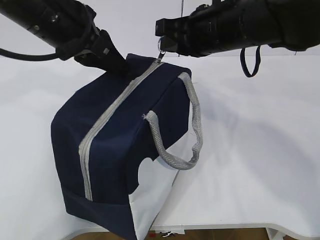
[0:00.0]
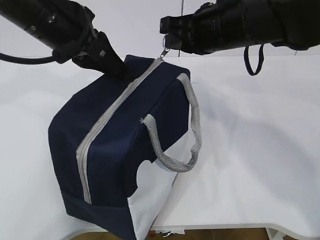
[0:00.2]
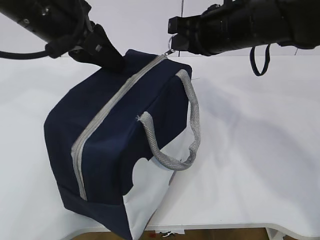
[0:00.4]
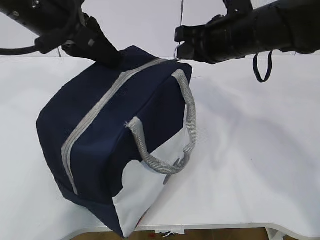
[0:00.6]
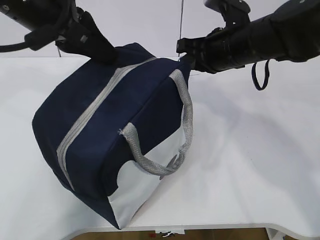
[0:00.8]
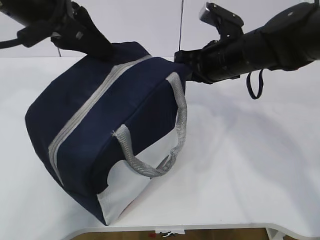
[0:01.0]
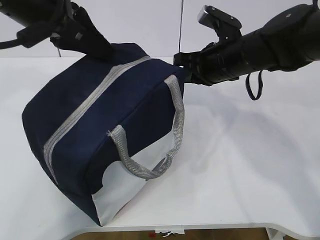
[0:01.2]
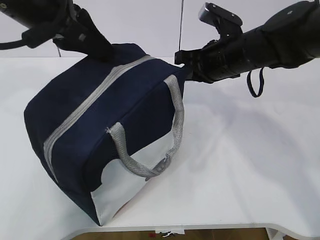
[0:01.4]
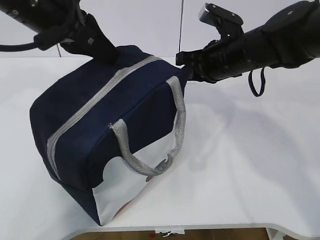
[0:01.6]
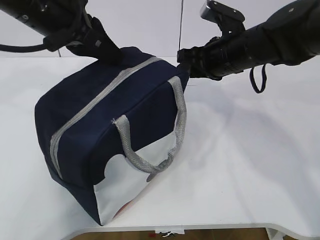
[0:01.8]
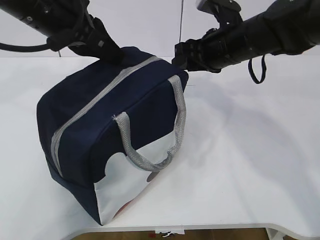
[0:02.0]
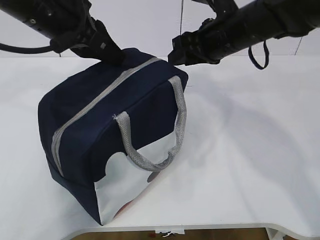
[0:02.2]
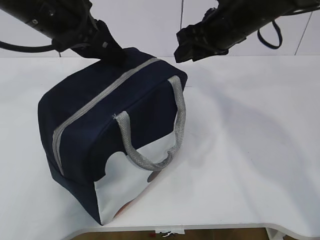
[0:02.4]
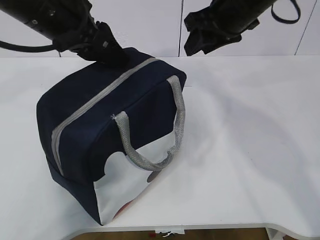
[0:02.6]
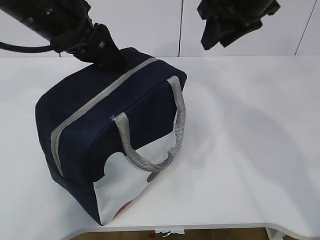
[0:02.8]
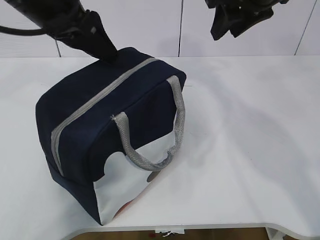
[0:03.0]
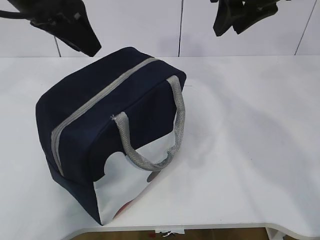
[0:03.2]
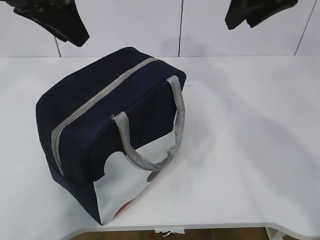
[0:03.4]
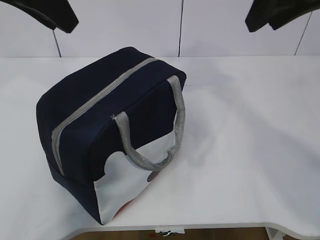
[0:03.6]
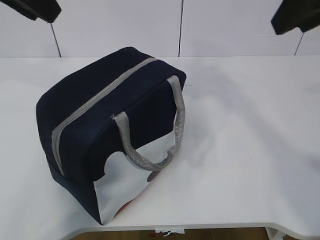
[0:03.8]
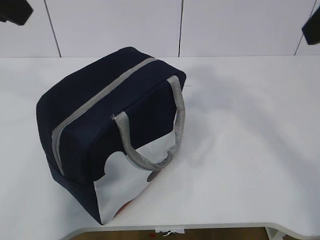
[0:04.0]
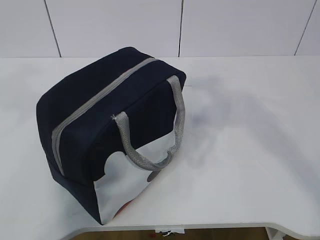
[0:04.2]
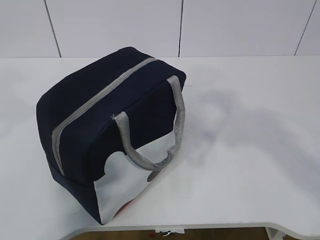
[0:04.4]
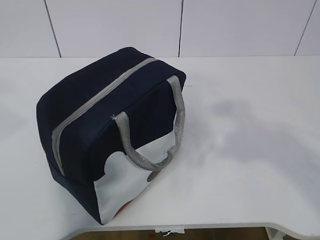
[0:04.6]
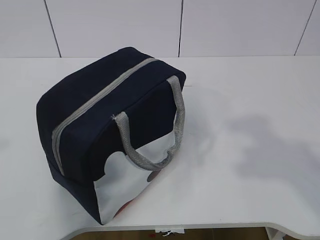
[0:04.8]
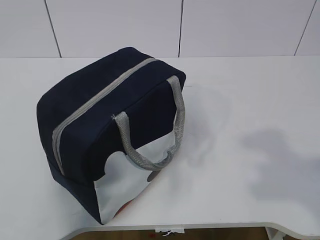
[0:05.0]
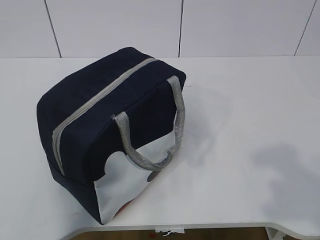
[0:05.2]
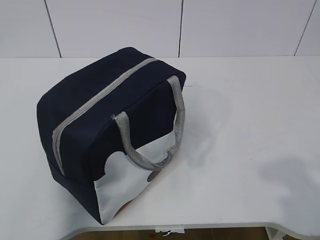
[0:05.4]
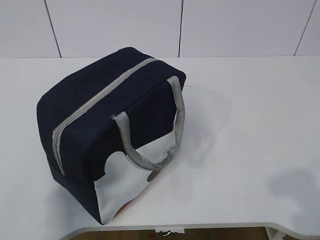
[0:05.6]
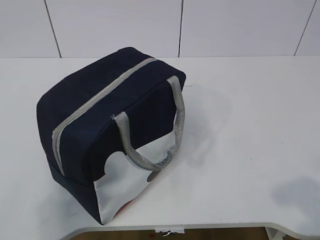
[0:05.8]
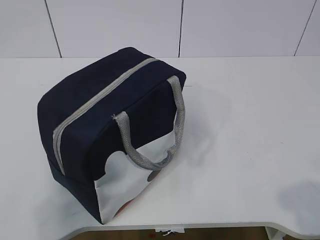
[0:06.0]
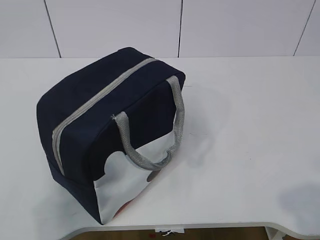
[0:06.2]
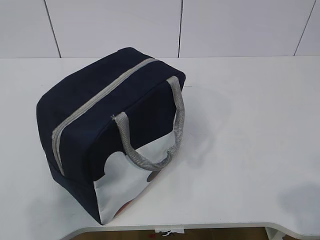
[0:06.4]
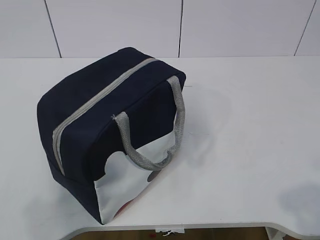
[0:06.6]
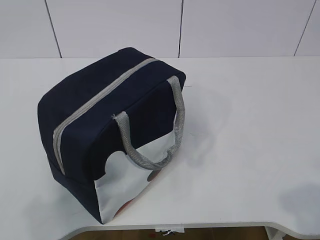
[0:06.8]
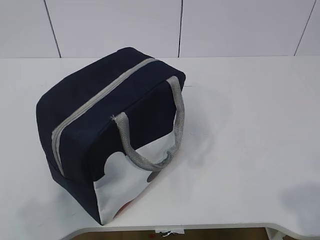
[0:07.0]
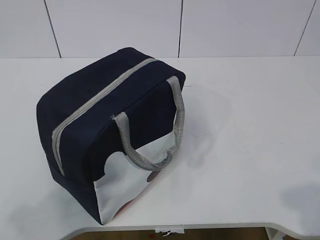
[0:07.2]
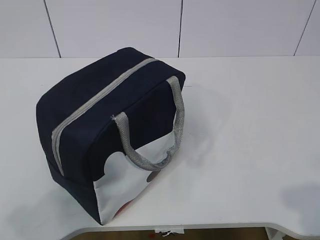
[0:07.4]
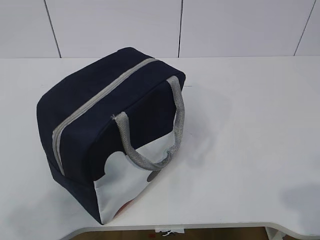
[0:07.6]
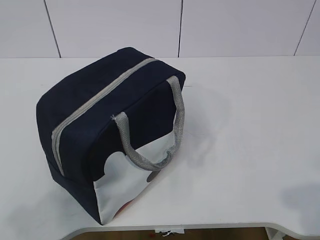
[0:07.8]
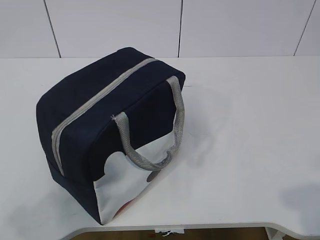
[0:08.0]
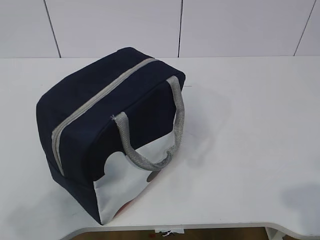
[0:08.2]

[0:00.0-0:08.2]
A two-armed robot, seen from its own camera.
0:00.0 to 0:01.6: The right gripper travels downward by about 5 cm.
0:01.6 to 0:03.2: The right gripper shifts about 15 cm upward, and opens its fingers; the left gripper opens up.
0:03.2 to 0:05.0: The left gripper travels backward and to the left by roughly 30 cm, while the right gripper moves backward, about 35 cm.
